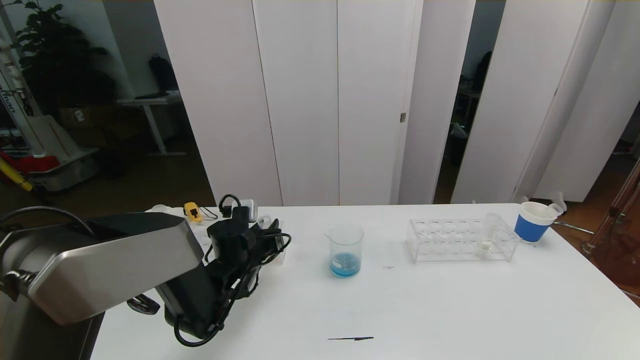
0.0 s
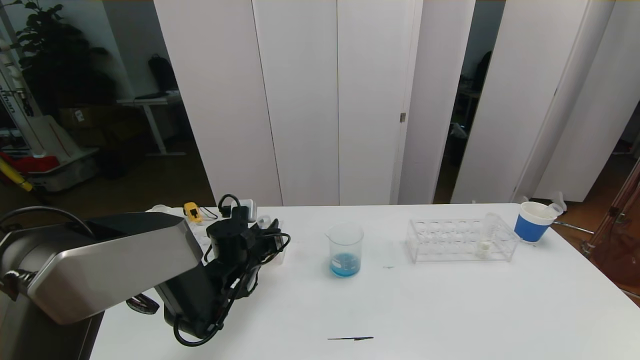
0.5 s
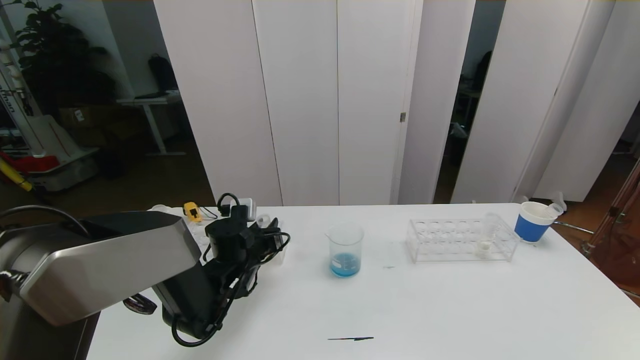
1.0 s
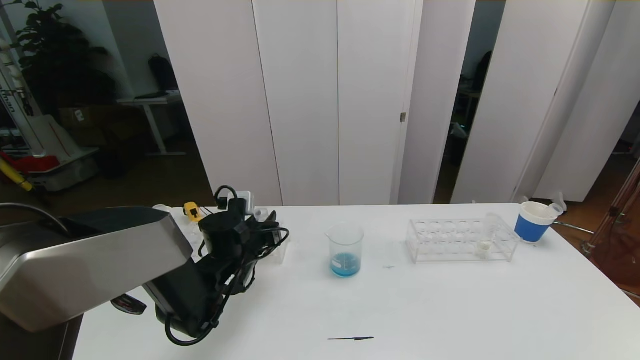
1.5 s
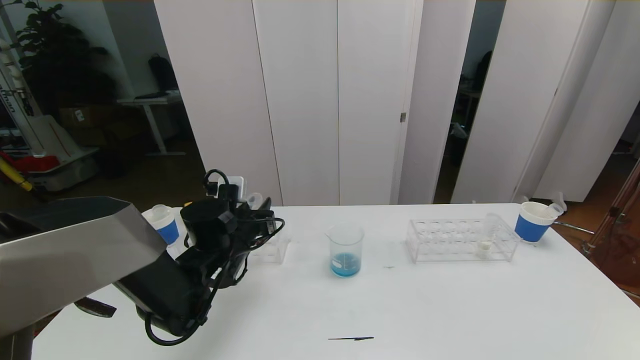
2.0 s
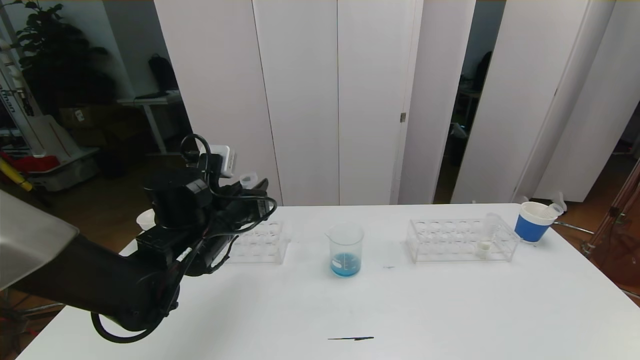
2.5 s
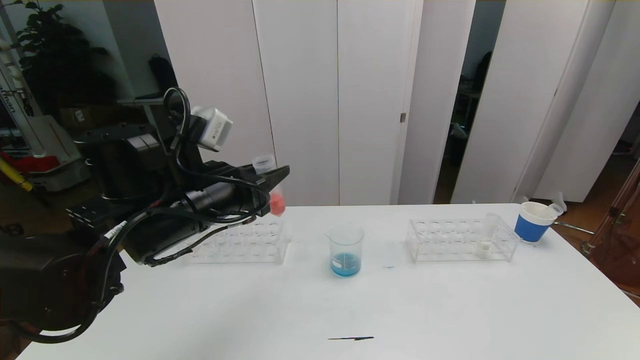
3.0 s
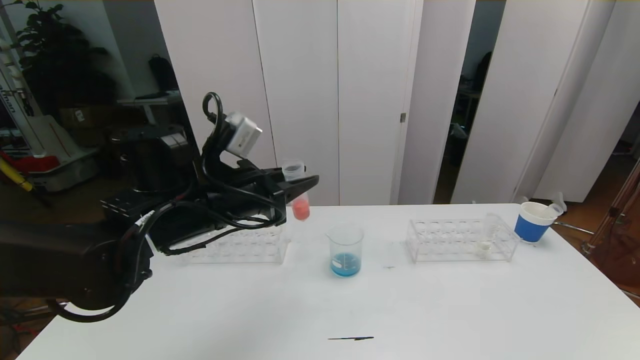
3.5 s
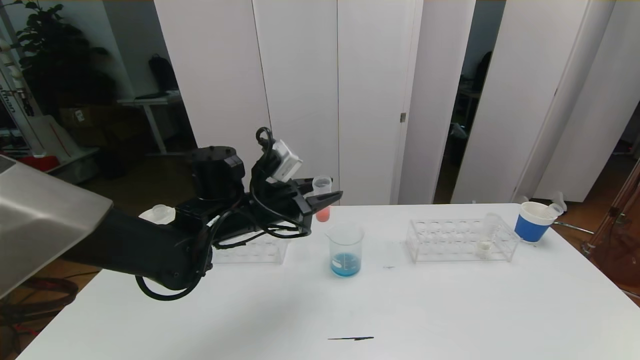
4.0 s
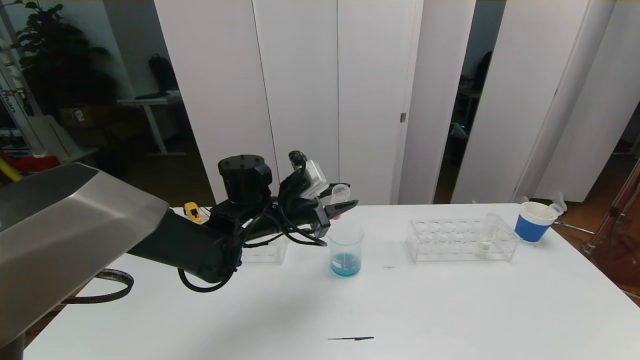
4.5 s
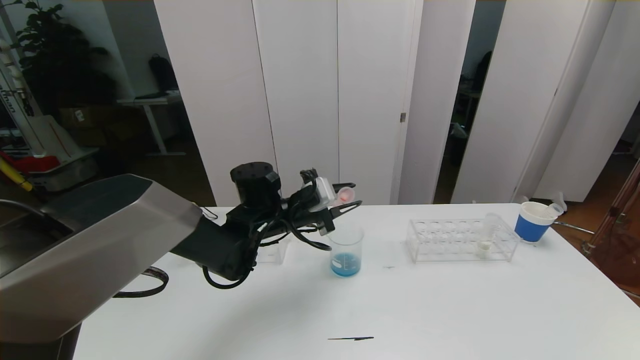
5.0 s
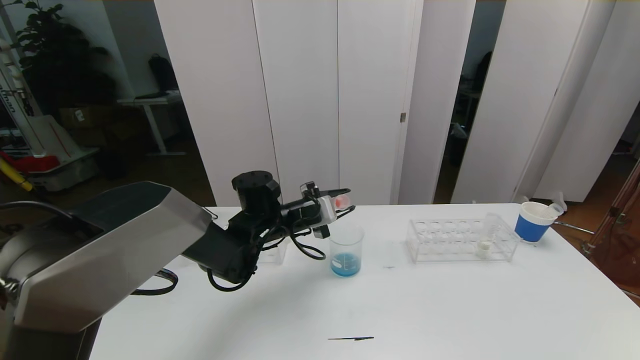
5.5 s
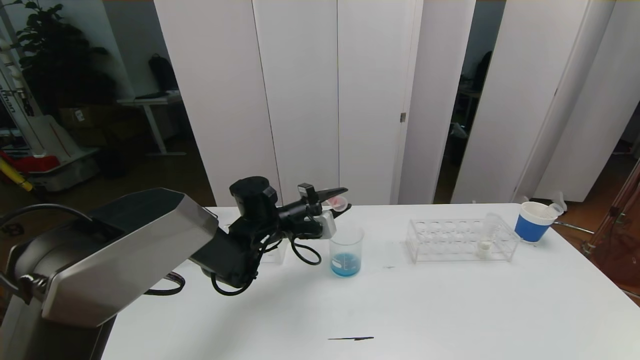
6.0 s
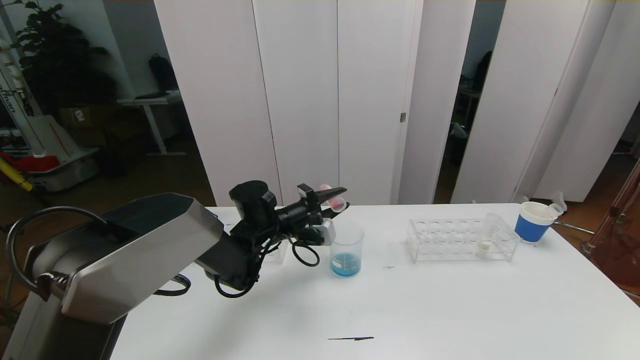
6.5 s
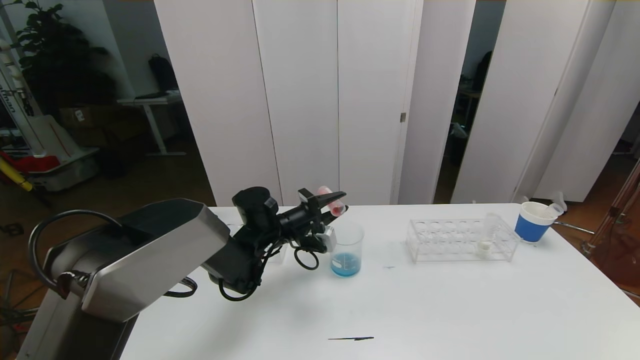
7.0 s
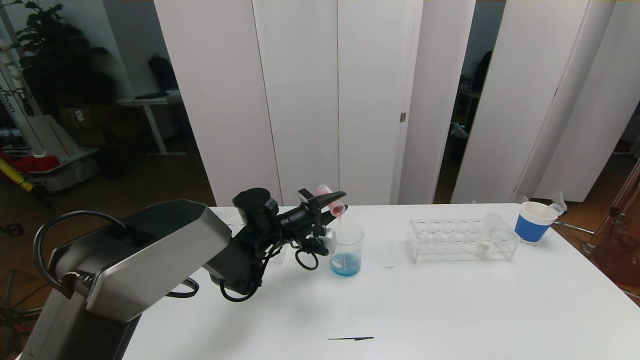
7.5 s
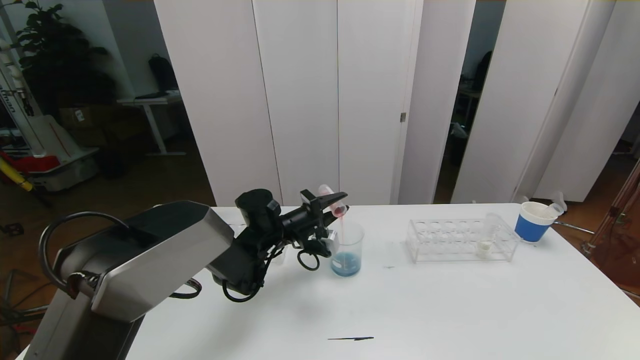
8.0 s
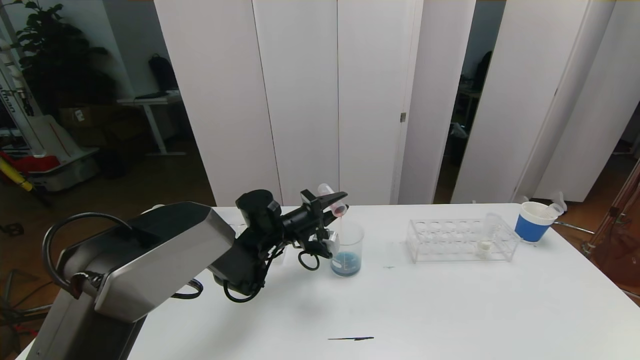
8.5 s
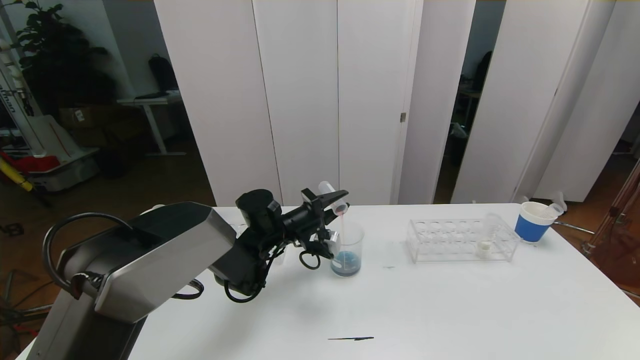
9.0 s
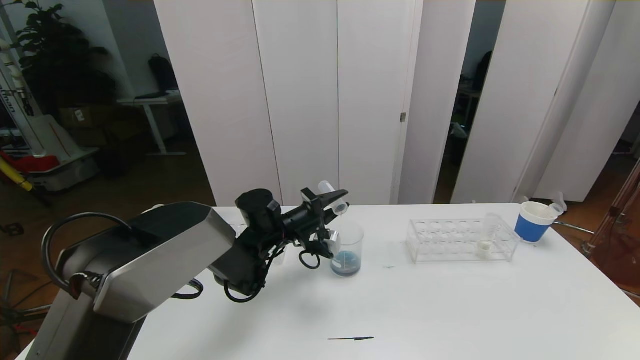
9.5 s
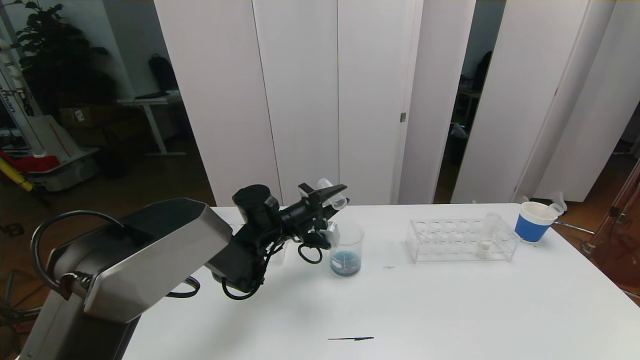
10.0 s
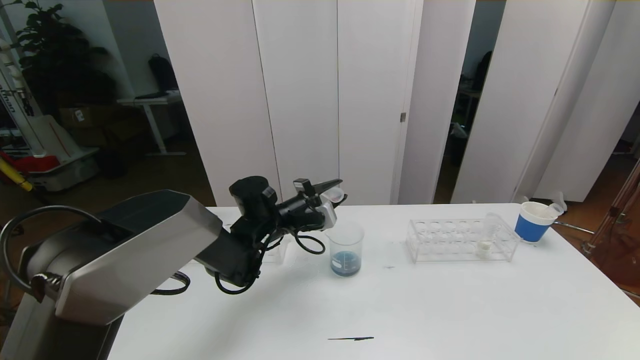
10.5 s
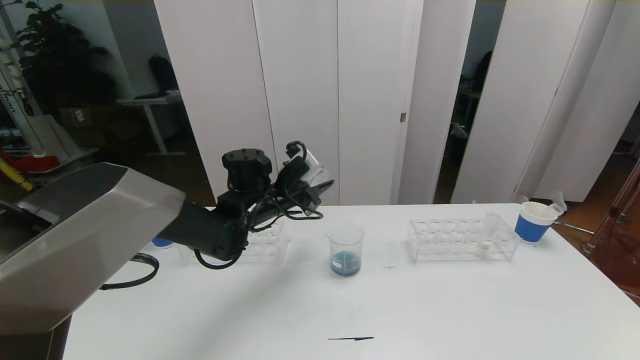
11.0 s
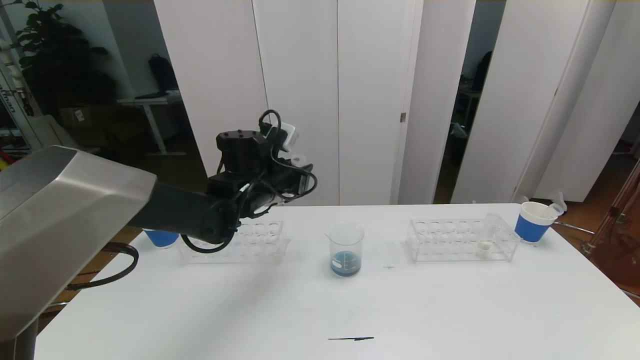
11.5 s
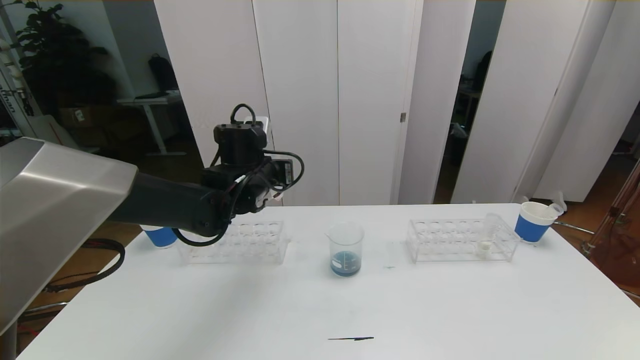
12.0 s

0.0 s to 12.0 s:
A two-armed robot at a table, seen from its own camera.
Task of the whole recording: pick up the test tube with red pigment the test tube with blue pigment and the test tube with white pigment by grippers and pour them into the beaker.
0.0 to 2.0 s: The left gripper travels upward by about 5 cm.
2.0 to 4.0 s: The left gripper travels upward by roughly 5 cm.
4.0 to 6.0 s: The left gripper travels downward and forward by some 10 cm.
6.0 to 8.0 s: The grippers make only small movements.
8.0 to 10.0 s: The two grippers keep their place.
10.0 to 12.0 s: The left gripper shifts some 10 cm upward.

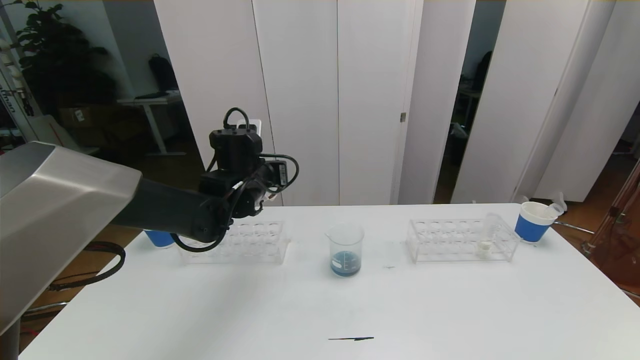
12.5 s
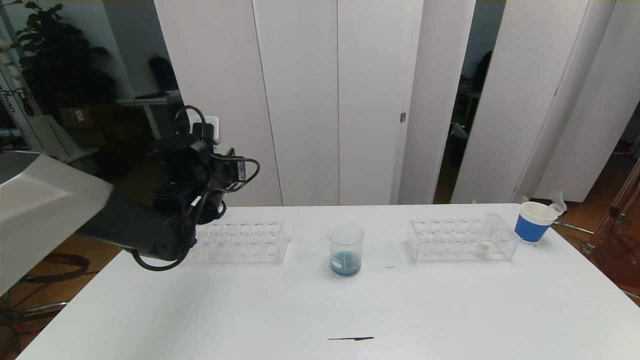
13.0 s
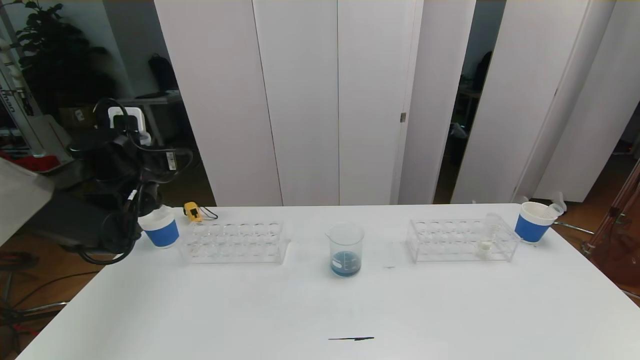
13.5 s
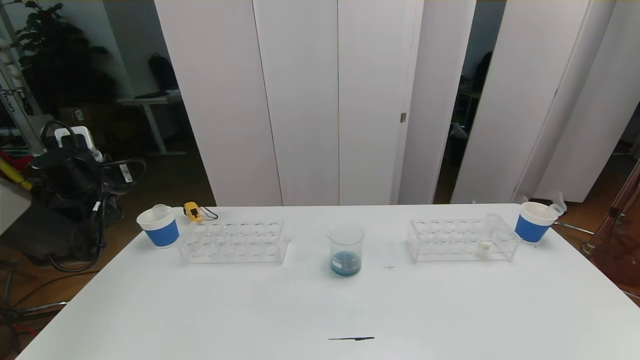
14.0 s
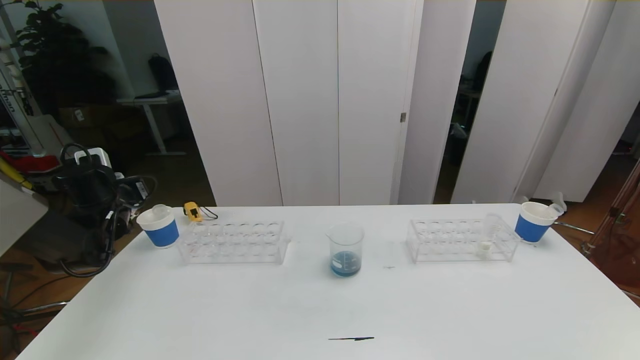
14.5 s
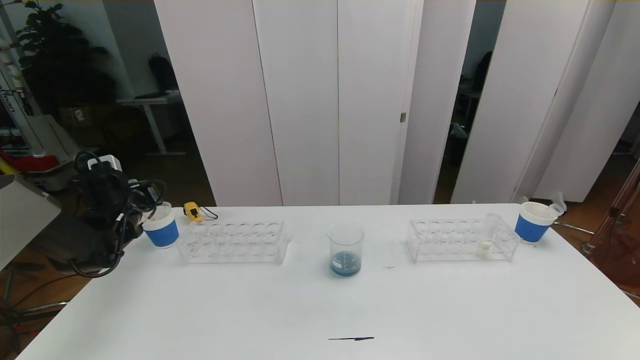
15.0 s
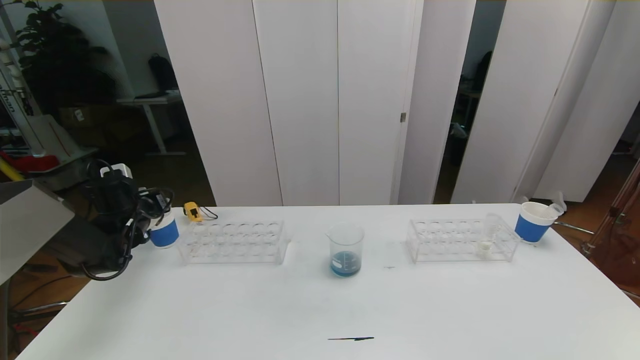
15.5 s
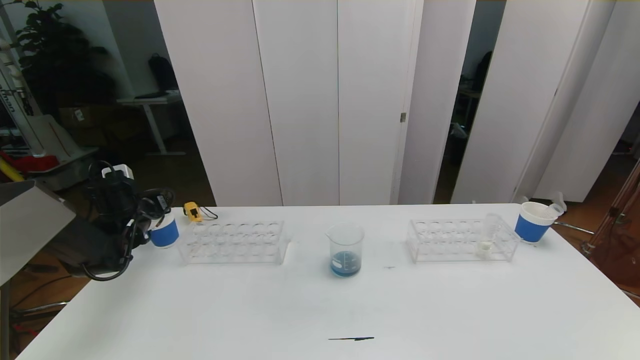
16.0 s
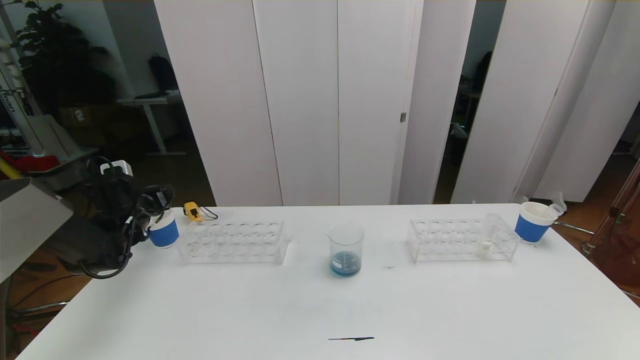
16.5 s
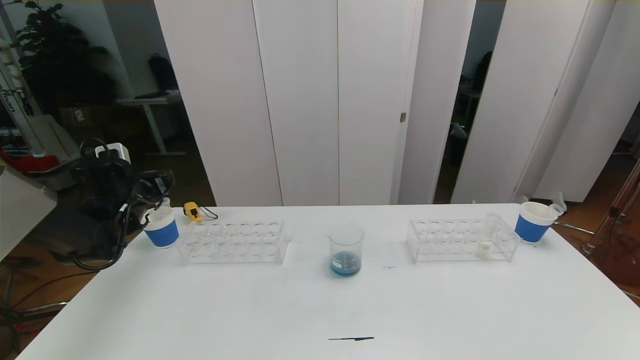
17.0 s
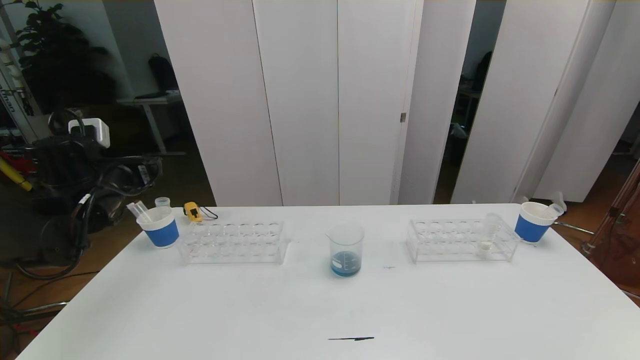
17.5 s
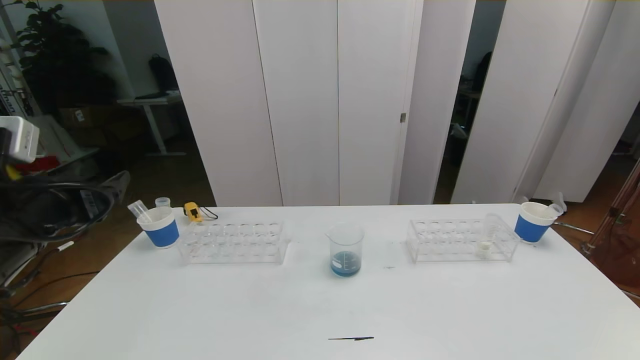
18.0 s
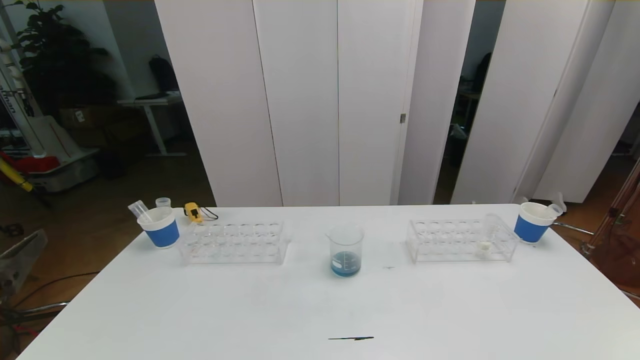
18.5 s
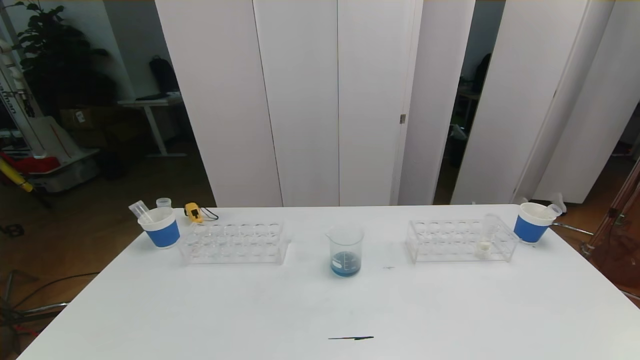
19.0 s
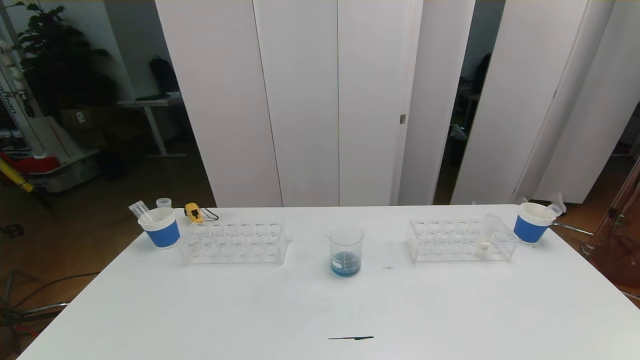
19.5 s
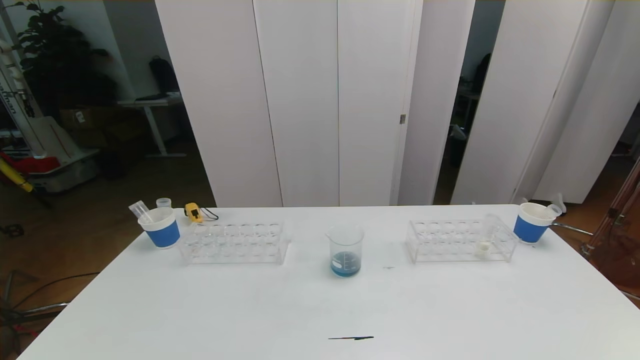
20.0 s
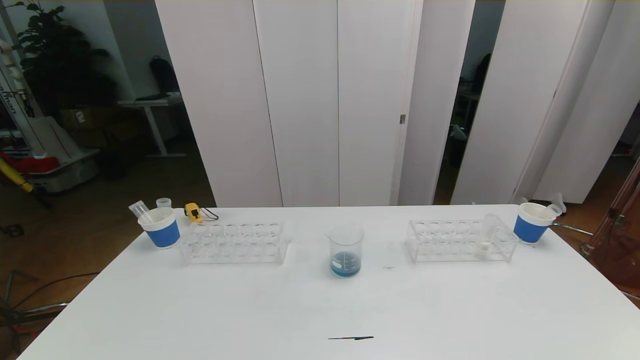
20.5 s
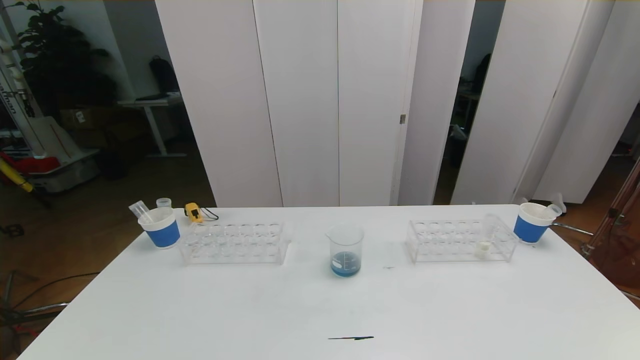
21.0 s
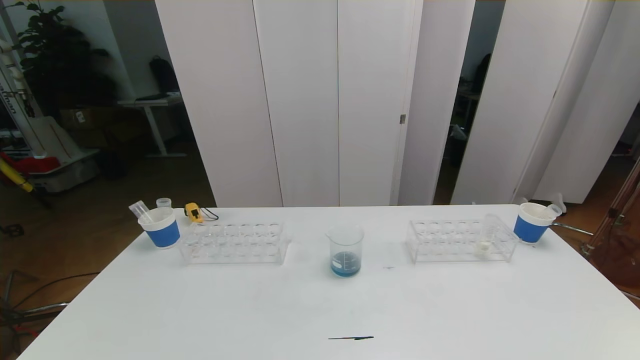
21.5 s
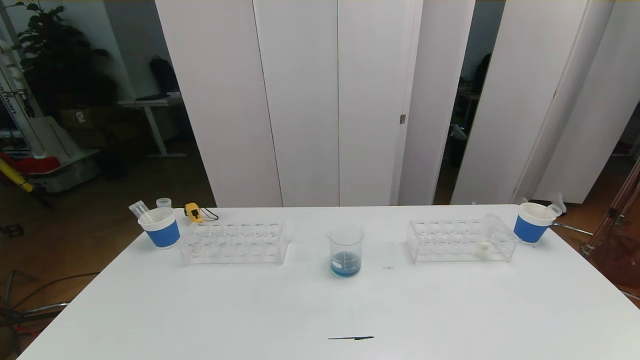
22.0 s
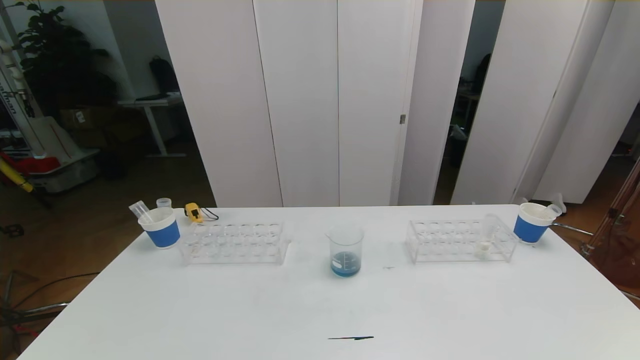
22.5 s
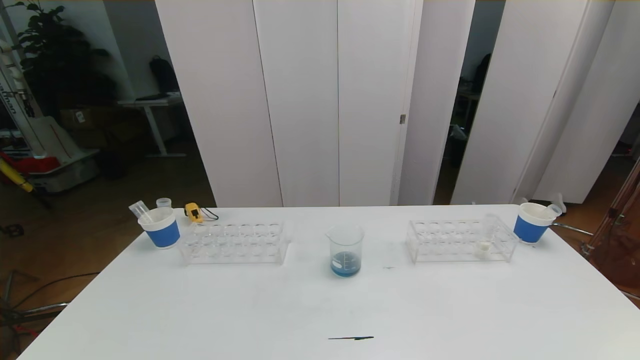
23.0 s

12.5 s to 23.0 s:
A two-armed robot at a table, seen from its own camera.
Task of the whole recording: pick up the test tube with red pigment the test tube with blue pigment and the test tube with white pigment by grippers and pour them into the beaker.
Step, 12.5 to 19.5 s: Pour the orange reagent into the graduated cylinder and place the test tube into the paper cup.
12.5 to 14.5 s: The left gripper travels to the left by about 25 cm.
14.5 to 16.5 s: The left gripper opens up.
16.5 to 19.0 s: The left gripper is displaced backward by roughly 50 cm.
